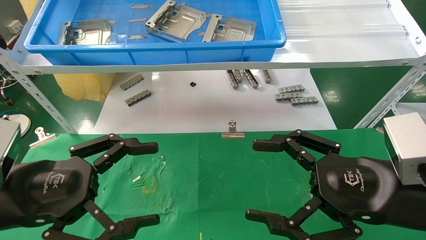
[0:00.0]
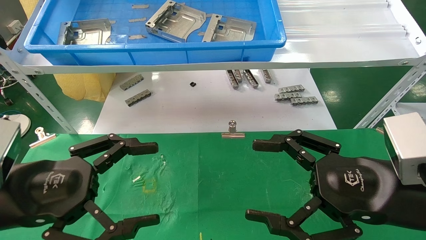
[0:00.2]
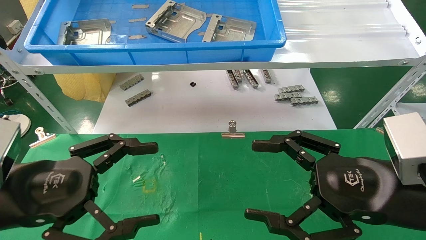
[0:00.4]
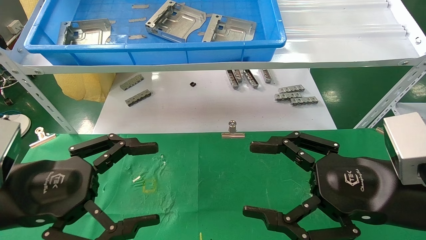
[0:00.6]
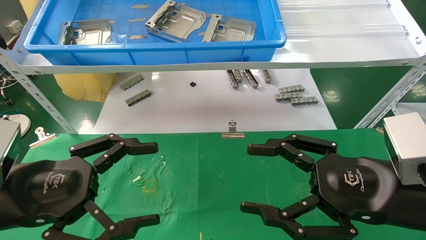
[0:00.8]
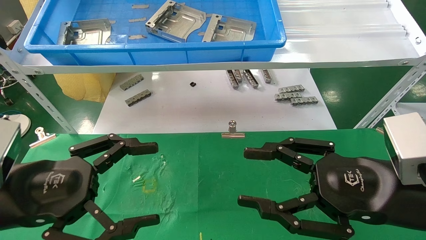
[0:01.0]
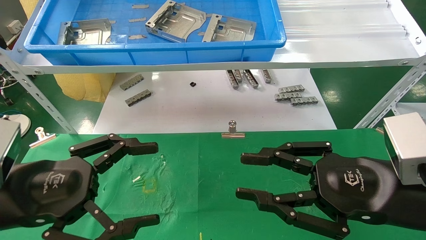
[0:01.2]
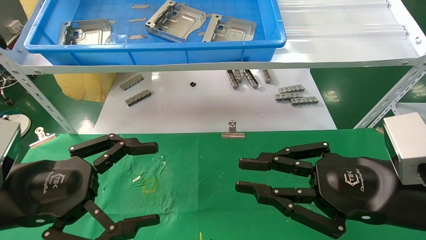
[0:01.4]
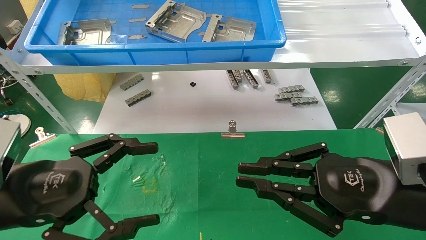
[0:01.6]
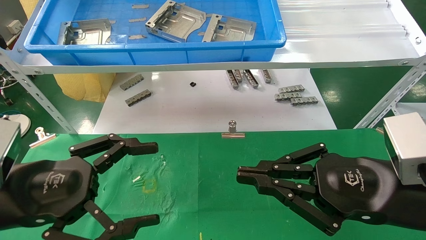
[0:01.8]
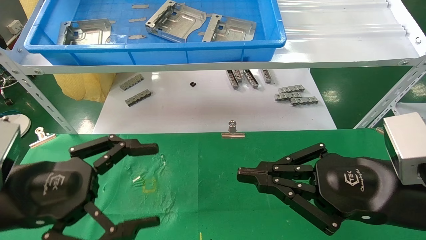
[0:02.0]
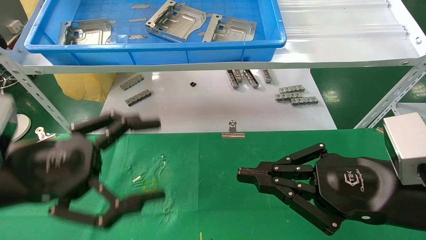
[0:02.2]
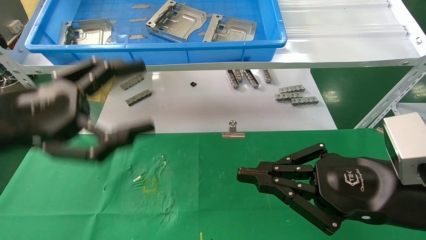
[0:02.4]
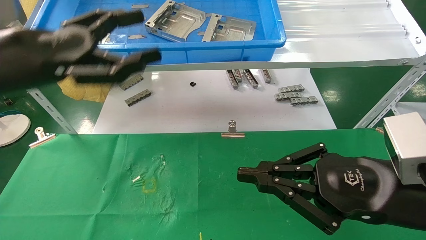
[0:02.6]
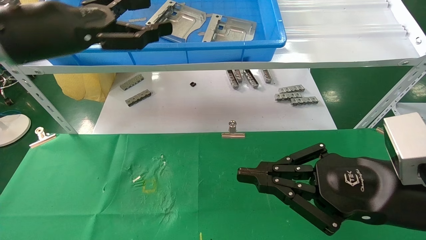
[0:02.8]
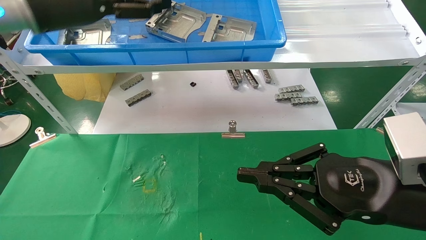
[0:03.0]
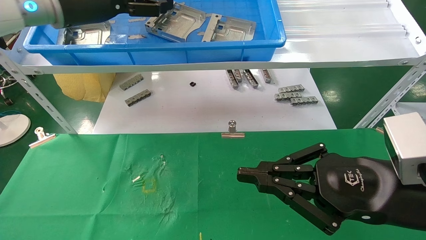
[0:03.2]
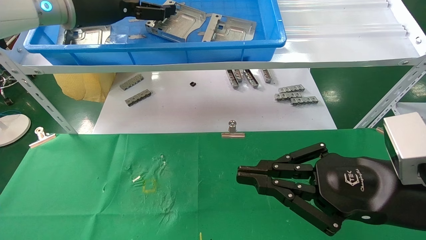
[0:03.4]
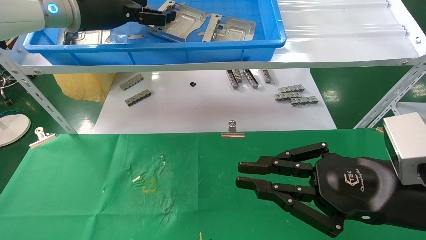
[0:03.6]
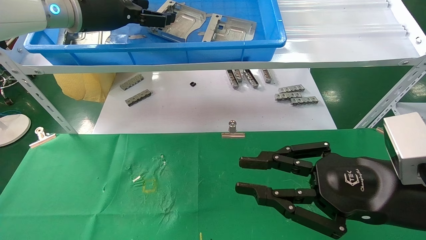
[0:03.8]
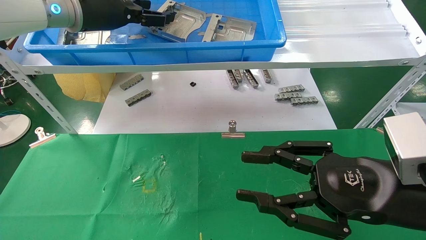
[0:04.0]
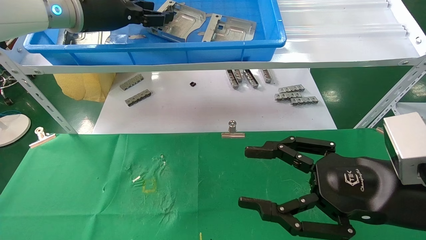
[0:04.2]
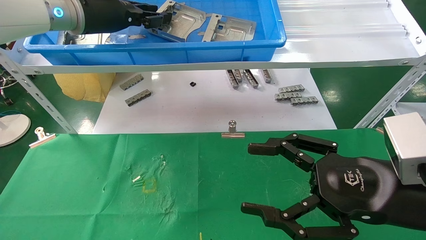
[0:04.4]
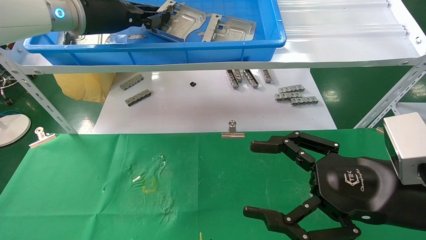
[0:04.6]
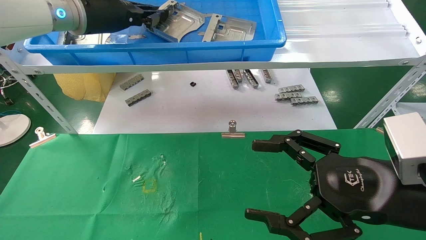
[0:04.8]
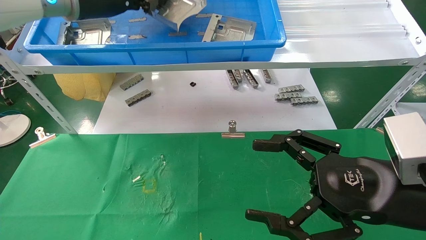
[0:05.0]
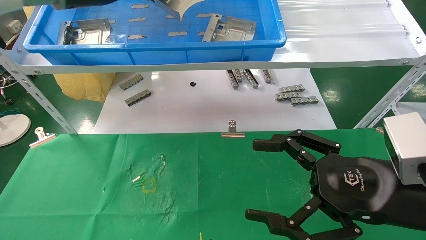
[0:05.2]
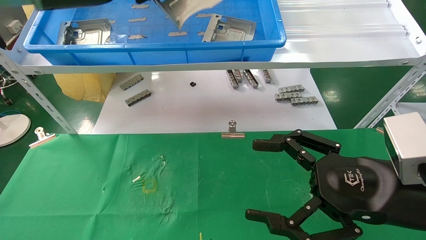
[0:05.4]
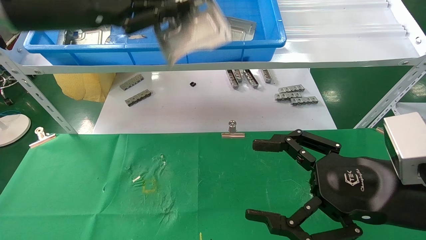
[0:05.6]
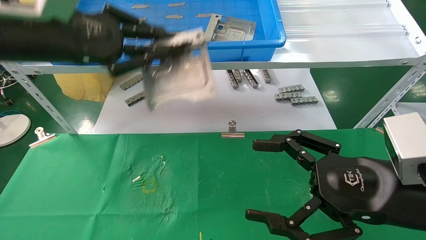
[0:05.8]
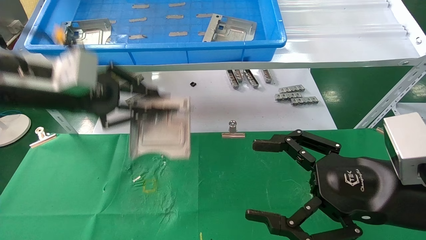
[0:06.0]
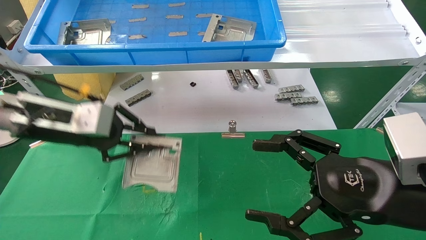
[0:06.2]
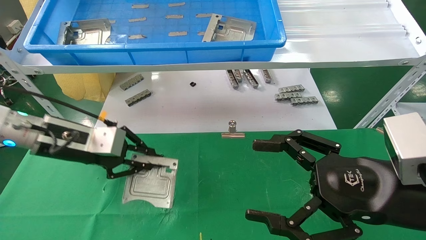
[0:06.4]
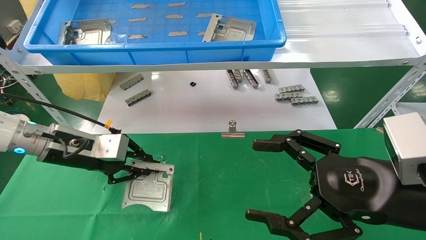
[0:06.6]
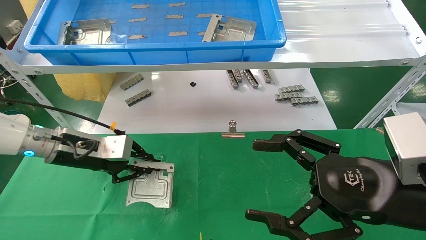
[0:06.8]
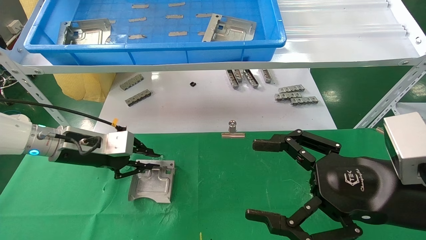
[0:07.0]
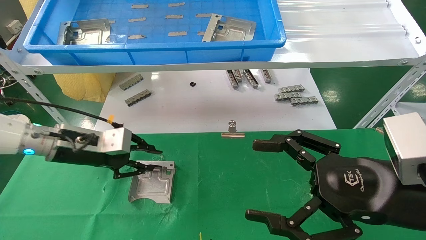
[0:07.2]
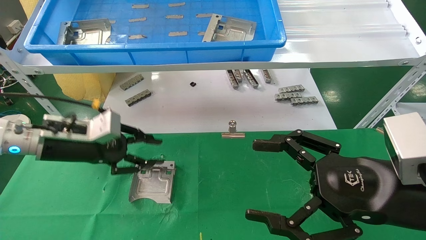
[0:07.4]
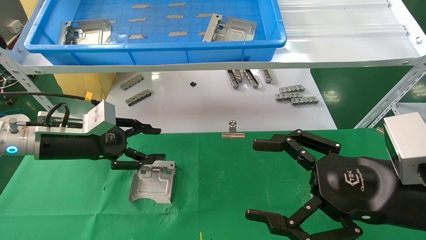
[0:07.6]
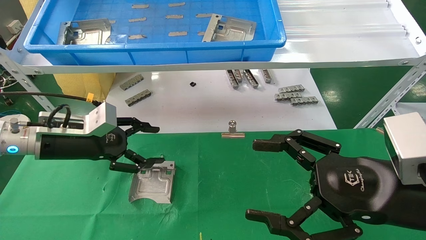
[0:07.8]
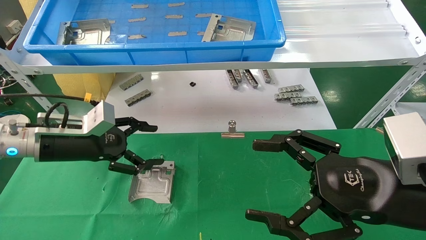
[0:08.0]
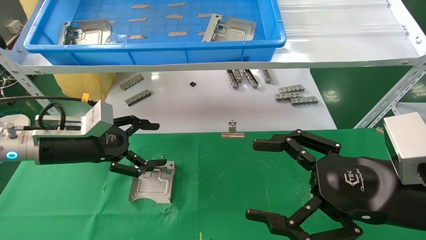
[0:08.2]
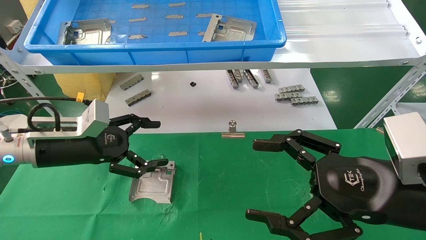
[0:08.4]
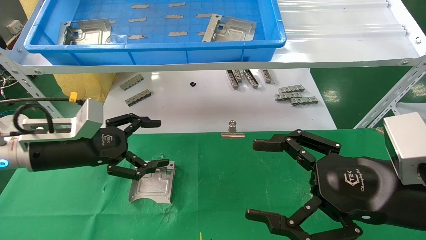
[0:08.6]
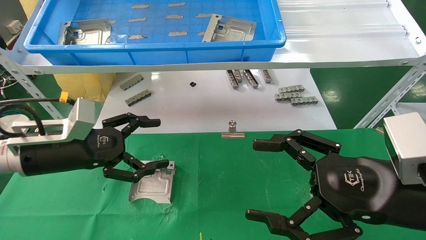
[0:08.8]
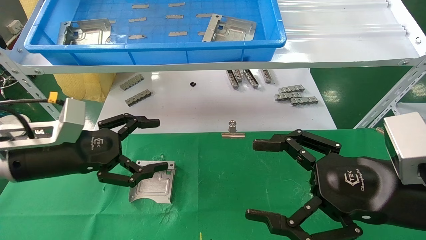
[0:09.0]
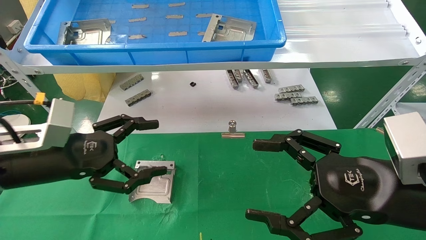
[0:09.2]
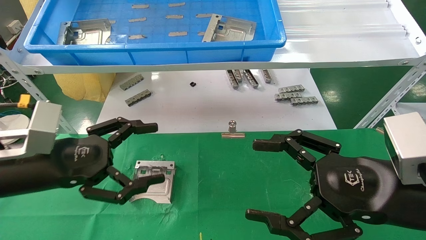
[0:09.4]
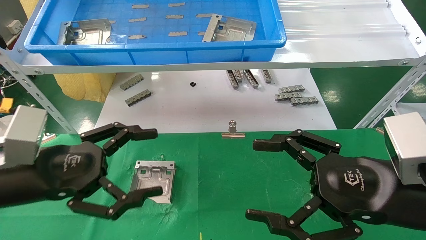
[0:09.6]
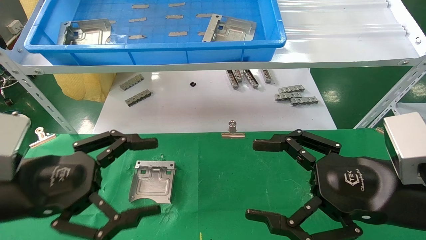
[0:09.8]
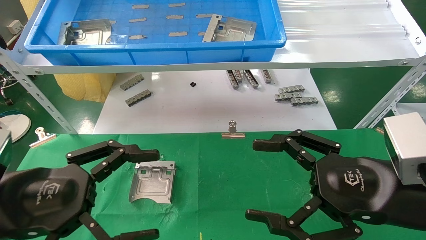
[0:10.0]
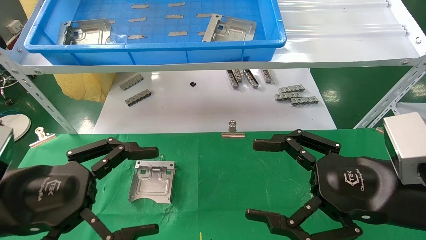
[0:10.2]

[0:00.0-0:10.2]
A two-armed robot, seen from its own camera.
Task of the whole recording: use the mechanical arm to pick up the parts and place them on the table.
Step, 0:02.2 to 0:04.8: Pick up the hard drive bracket from the feeding area.
Step, 0:05.0 to 0:07.2: Place the hard drive bracket into the box.
0:00.0 to 0:01.4: The right gripper closes up.
0:01.4 to 0:03.0: The left gripper is displaced upward and forward by about 25 cm.
0:03.0 to 0:04.4: The right gripper opens up. Meanwhile the left gripper travels forward by about 5 cm, and closes.
0:04.4 to 0:05.8: The left gripper goes roughly 10 cm backward, and closes.
0:05.8 to 0:07.2: The left gripper travels downward by some 20 cm.
0:07.2 to 0:08.8: The left gripper travels backward by about 5 cm, and opens its fingers.
0:08.8 to 0:10.2: The left gripper moves backward, approximately 15 cm.
